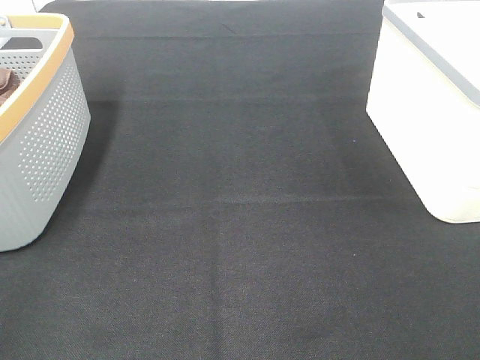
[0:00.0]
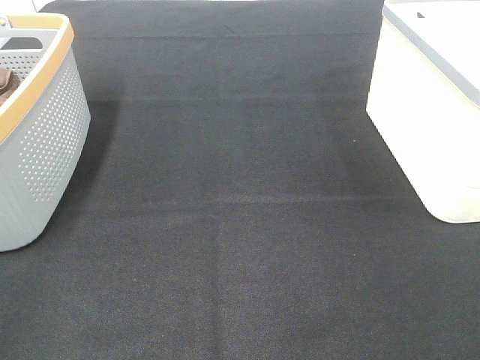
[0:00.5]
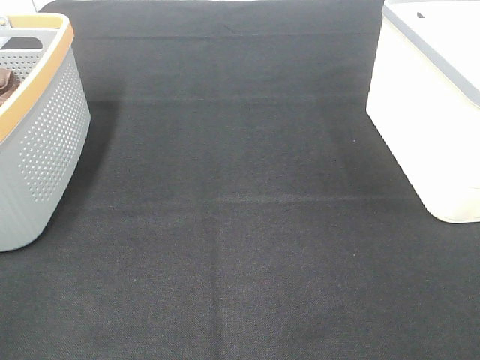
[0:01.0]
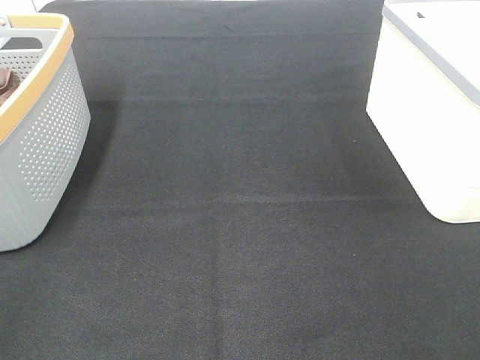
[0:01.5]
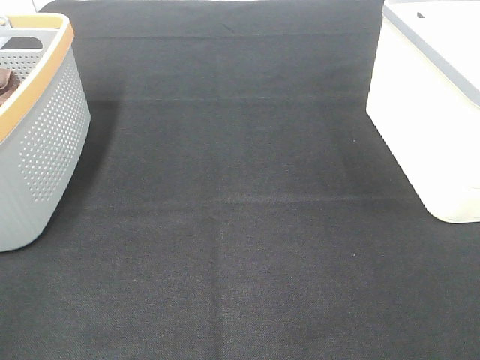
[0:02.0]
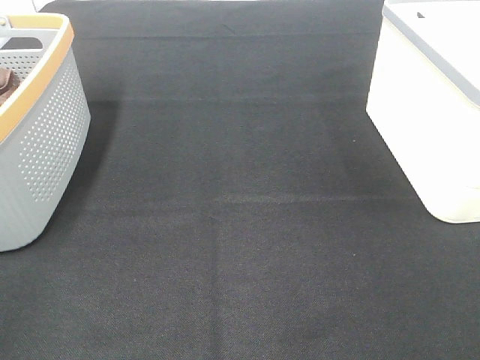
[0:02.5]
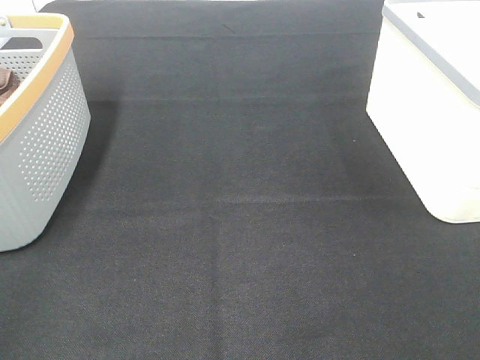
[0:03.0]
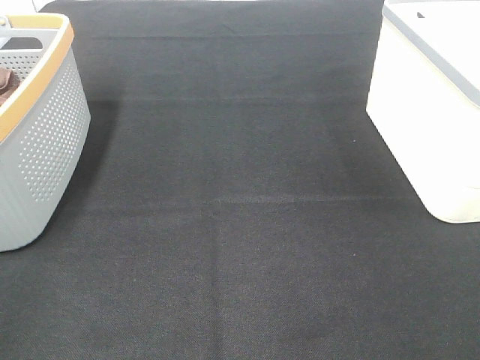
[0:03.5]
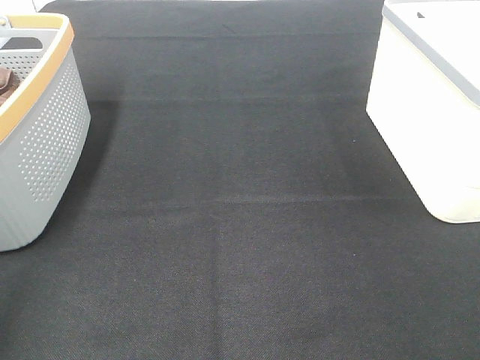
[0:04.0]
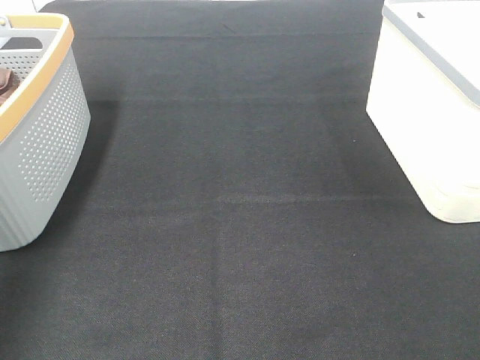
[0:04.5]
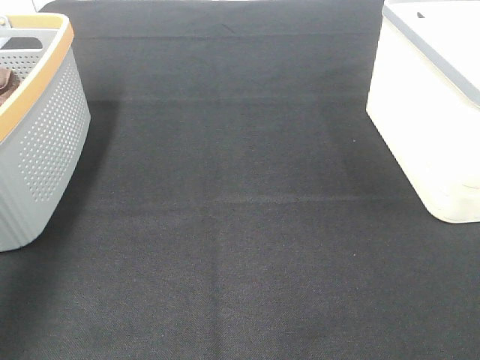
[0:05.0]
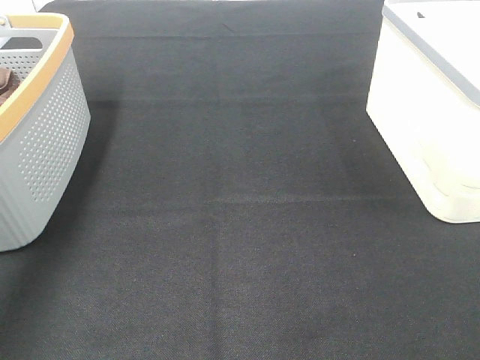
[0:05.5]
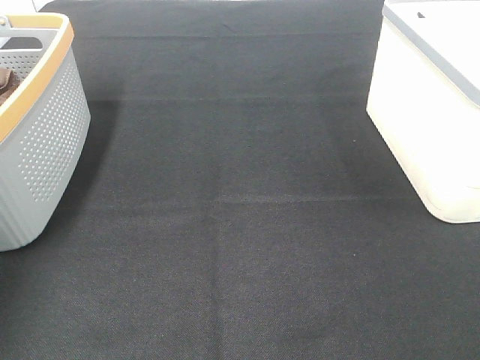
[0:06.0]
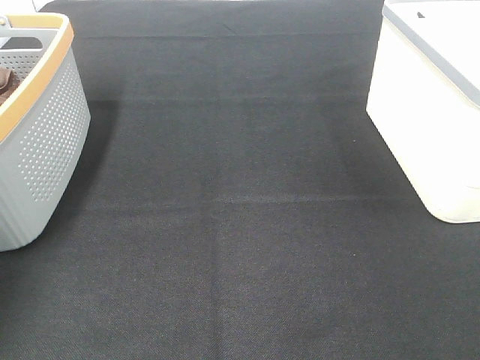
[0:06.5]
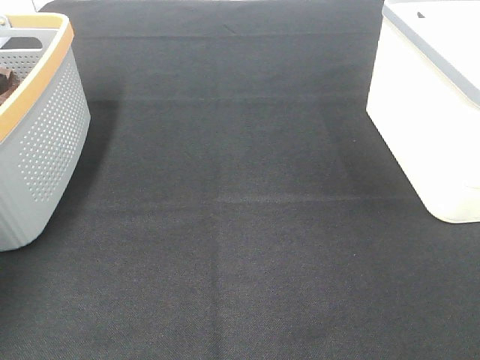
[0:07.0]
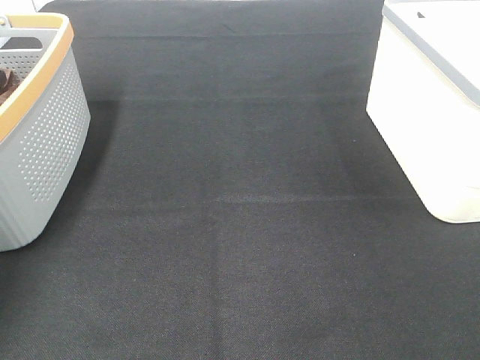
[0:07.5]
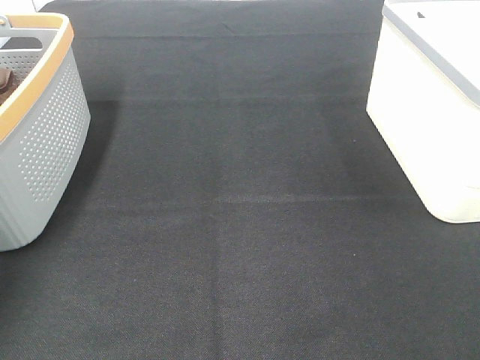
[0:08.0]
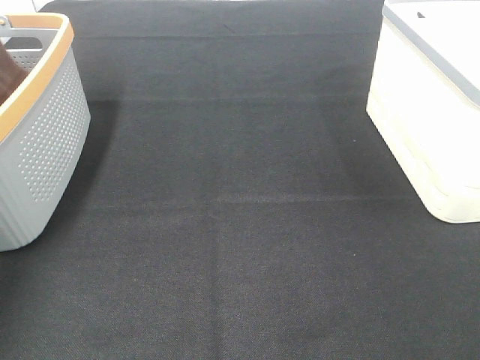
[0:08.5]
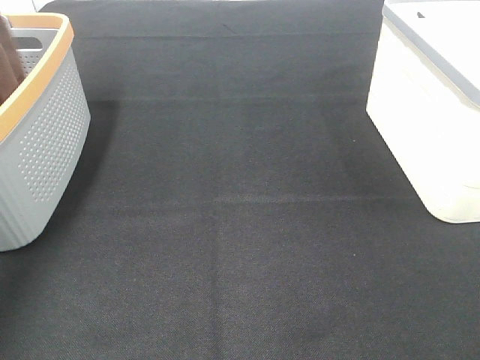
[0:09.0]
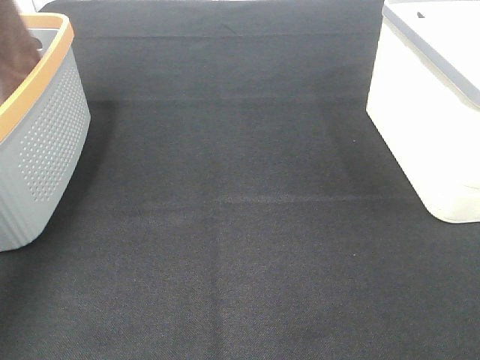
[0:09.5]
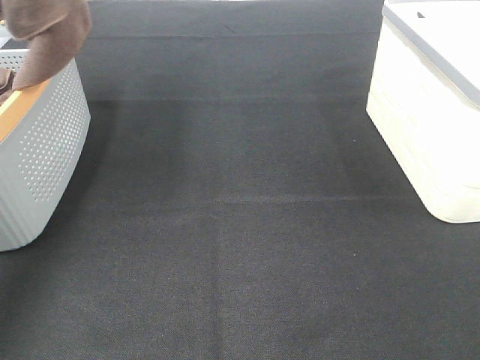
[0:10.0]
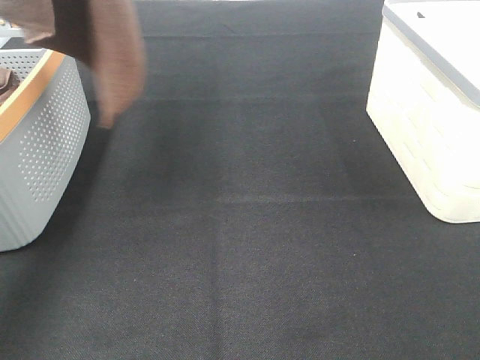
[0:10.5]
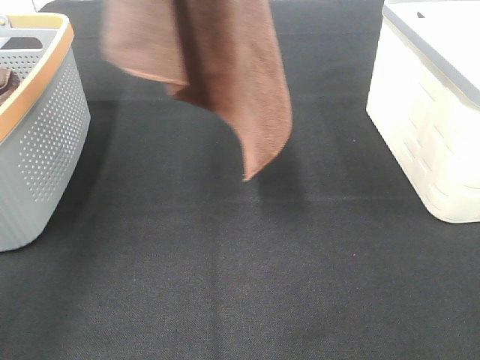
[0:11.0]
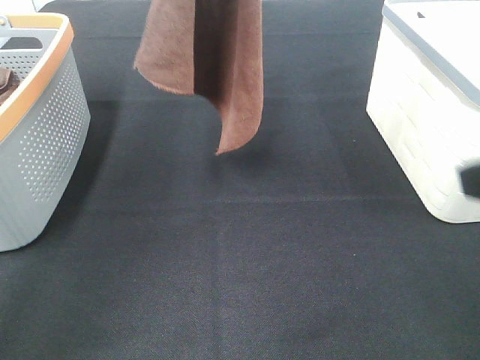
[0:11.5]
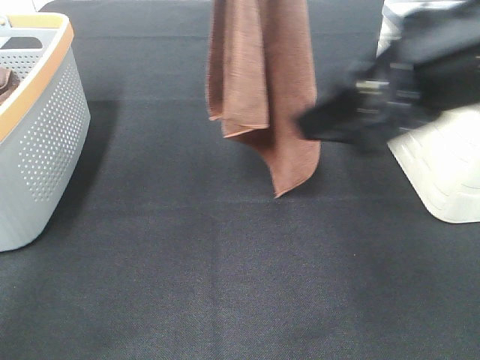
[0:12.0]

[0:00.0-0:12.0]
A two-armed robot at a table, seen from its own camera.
Task of the whole recording: Remove the towel and place it.
0:00.0 to 0:02.0: Both grippers stay about where they are.
0:08.0 to 0:10.0: The left gripper heads upward and backward, covering roughly 35 cm.
0:10.0 to 0:12.0: The right gripper travels forward and to the left by about 25 cm. The left gripper is displaced to the right and downward by approximately 25 cm.

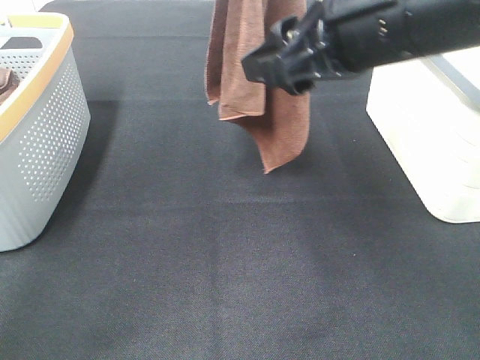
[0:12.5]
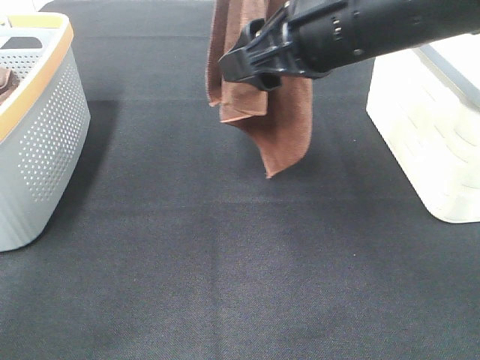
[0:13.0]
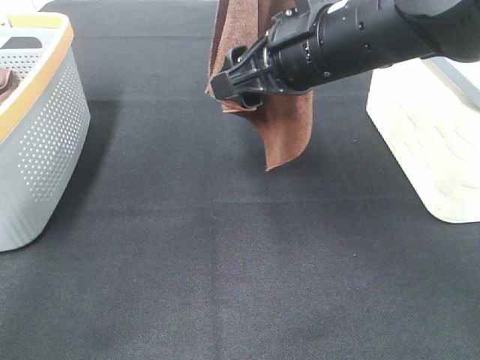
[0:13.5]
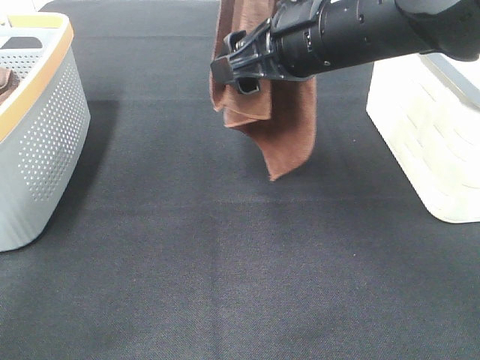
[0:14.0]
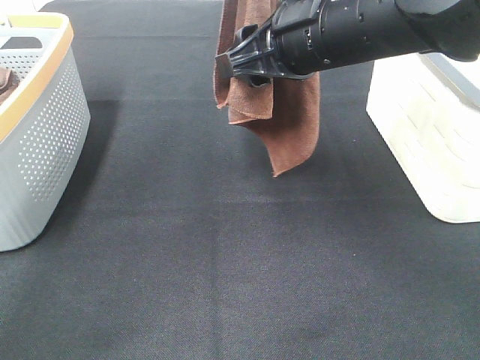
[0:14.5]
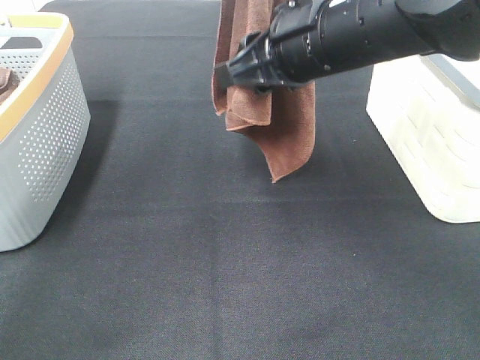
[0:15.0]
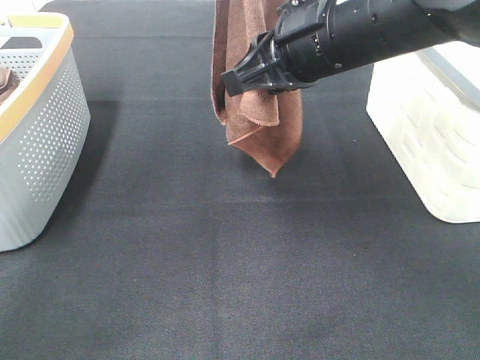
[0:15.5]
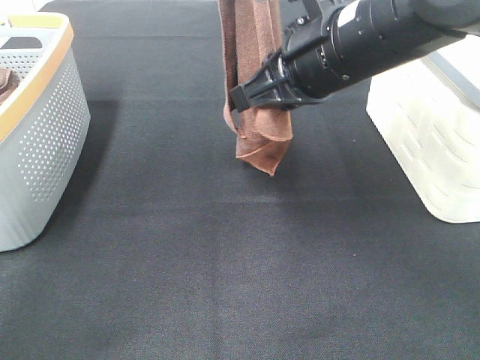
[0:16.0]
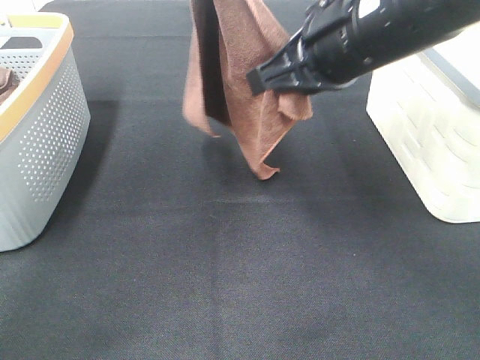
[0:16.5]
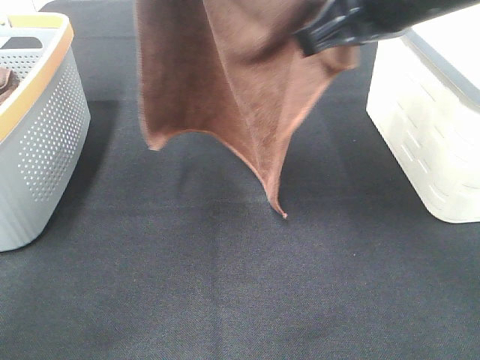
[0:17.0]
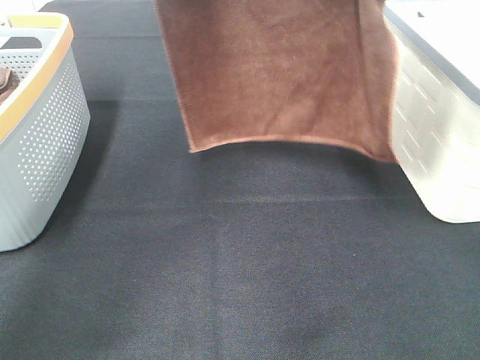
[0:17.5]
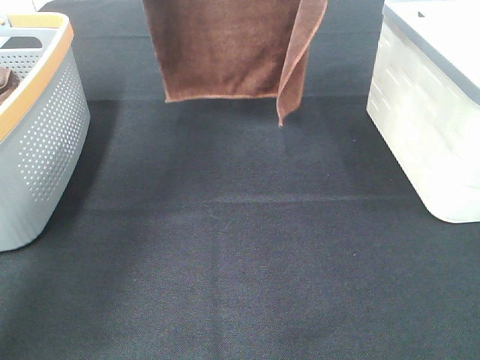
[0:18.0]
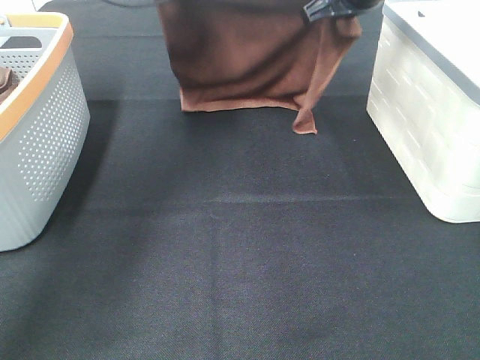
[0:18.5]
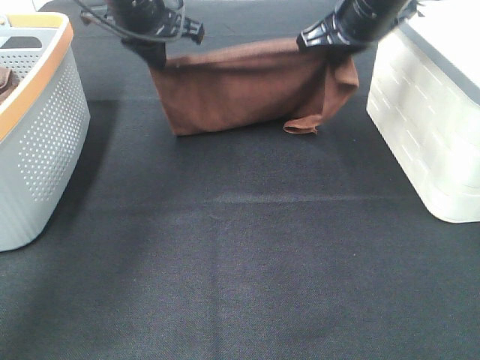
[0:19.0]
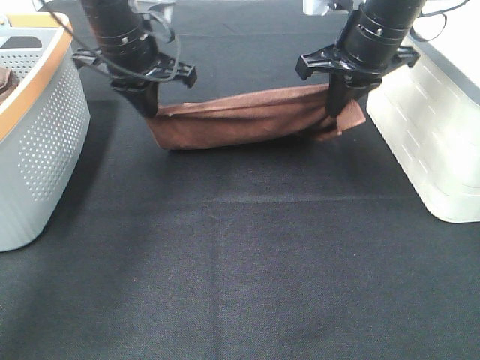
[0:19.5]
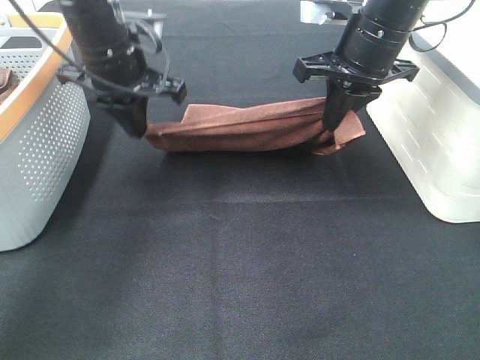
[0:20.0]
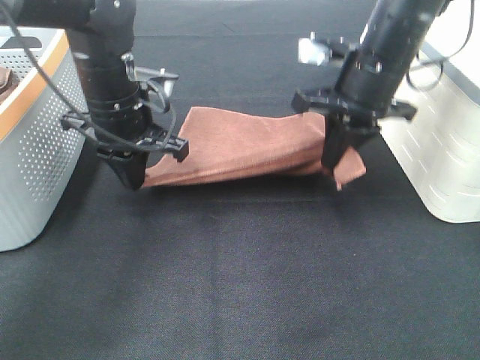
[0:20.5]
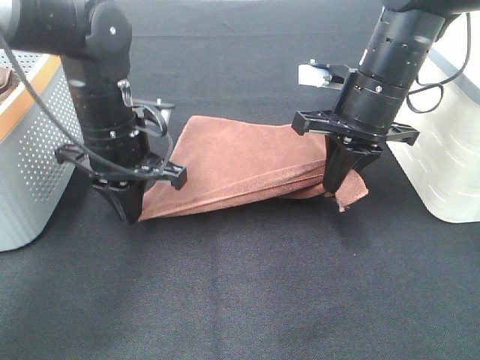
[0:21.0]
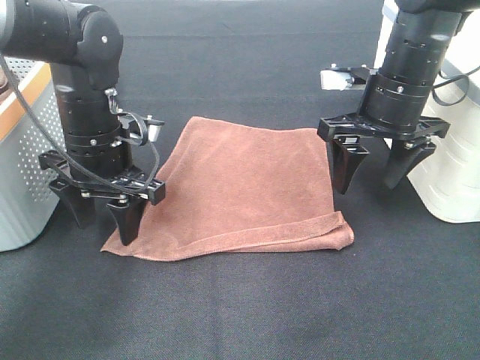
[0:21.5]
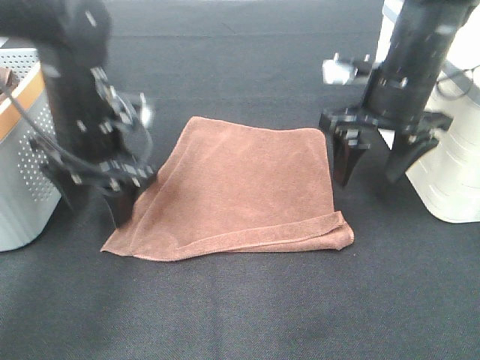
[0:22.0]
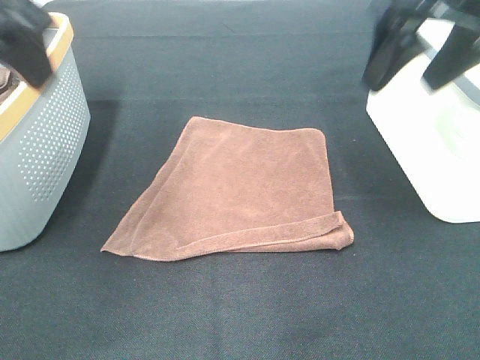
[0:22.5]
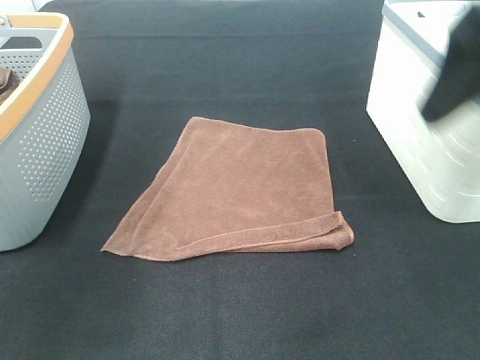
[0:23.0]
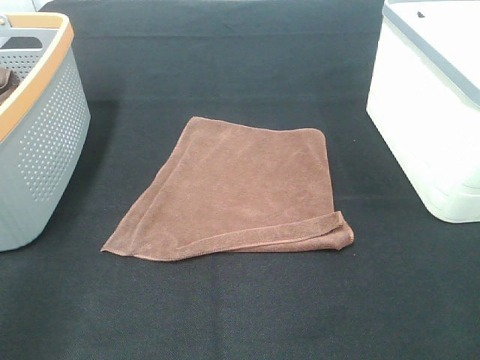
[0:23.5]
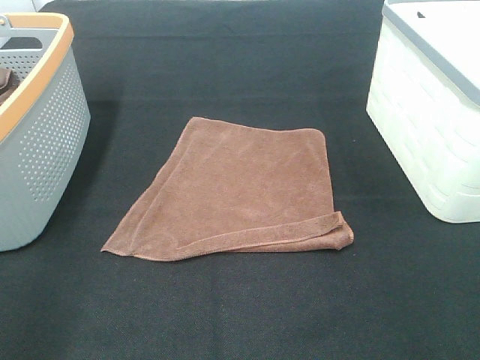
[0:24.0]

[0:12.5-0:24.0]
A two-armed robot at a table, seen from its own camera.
Task of the whole recording: Remove the towel and place it.
Step, 0:14.5 to 0:17.0: Left hand: spread the brown towel flat on the table.
Step, 0:14.5 to 0:17.0: Right hand: spread the brown towel flat on the table.
0:12.5 to 0:14.5: The right gripper heads forward, covering some 5 cm.
0:14.5 to 0:16.5: The right gripper closes its fingers.
0:16.5 to 0:18.5: The left gripper shifts about 20 cm downward and forward. Meanwhile the right gripper shifts about 20 cm forward.
0:18.5 to 0:20.0: The right gripper shifts some 5 cm backward, while the left gripper travels backward and downward by some 10 cm.
0:20.0 to 0:22.0: The right gripper ends up some 5 cm from where it was, and opens up; the left gripper travels backward by approximately 5 cm, and opens.
0:22.0 to 0:24.0: The left gripper shifts some 30 cm backward and to the left; the right gripper heads backward, covering some 35 cm.

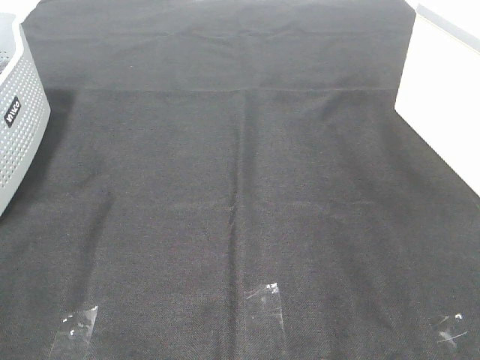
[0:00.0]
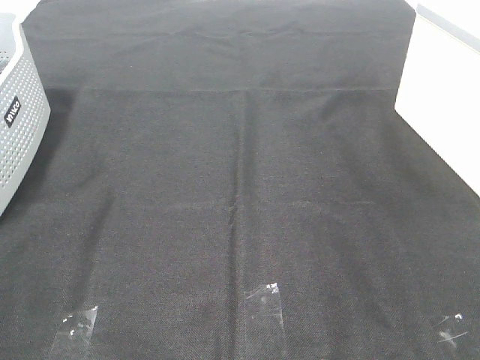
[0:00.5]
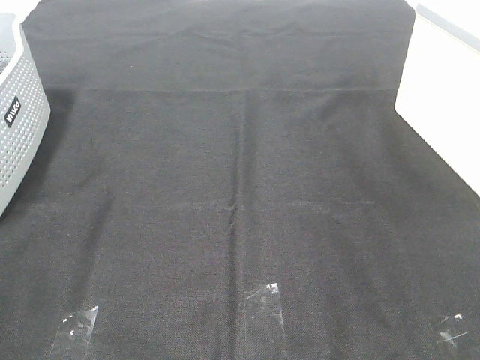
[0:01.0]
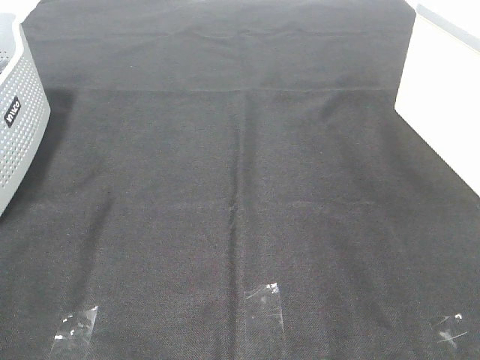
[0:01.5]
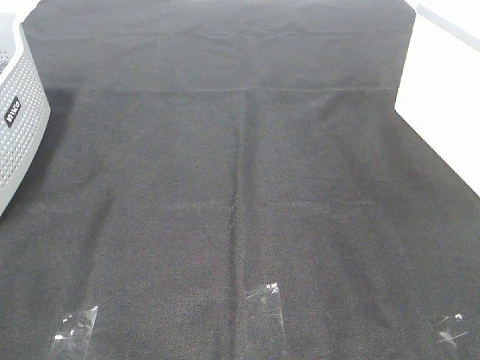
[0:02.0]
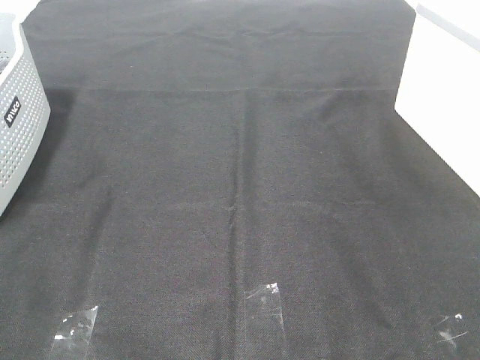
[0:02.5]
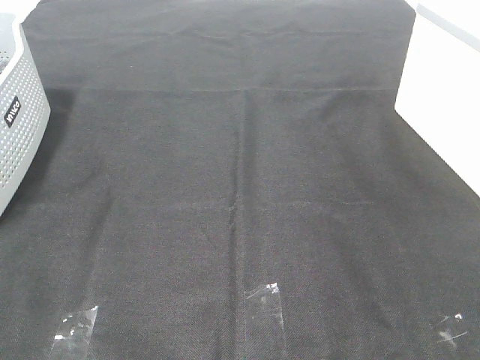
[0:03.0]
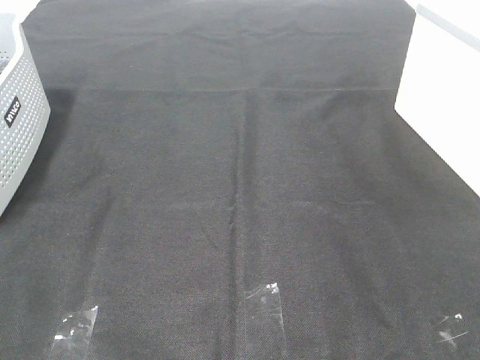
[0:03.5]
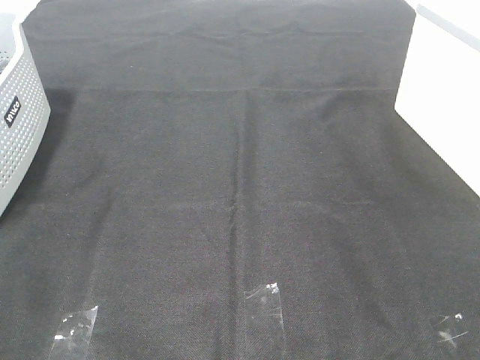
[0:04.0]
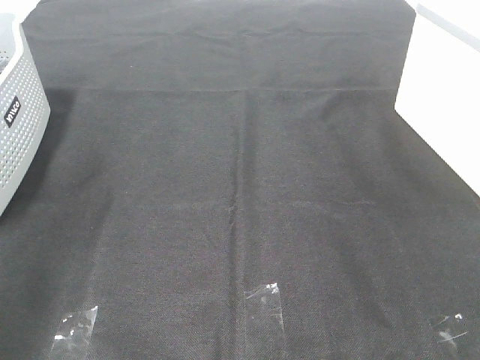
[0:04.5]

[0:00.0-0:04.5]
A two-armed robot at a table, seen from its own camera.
Task of the whole recording: Remove the towel and place it.
0:00.0 to 0:02.0: Both grippers stay about where they are.
